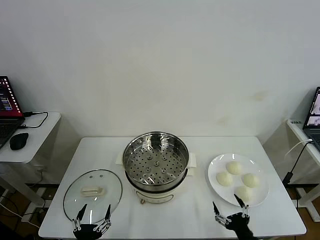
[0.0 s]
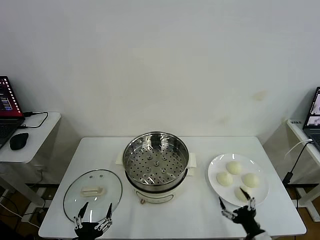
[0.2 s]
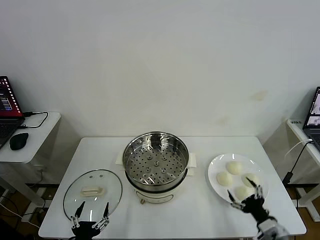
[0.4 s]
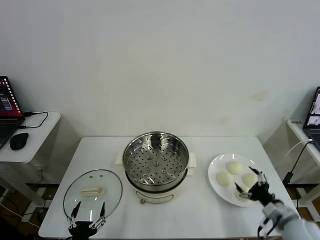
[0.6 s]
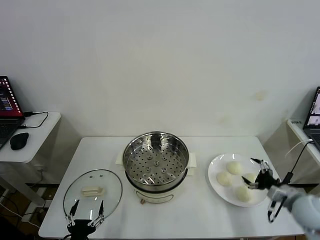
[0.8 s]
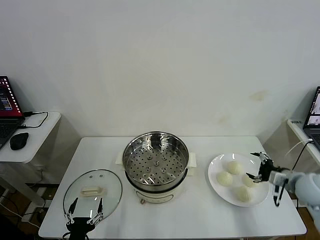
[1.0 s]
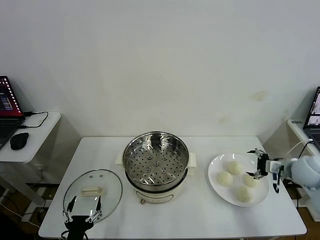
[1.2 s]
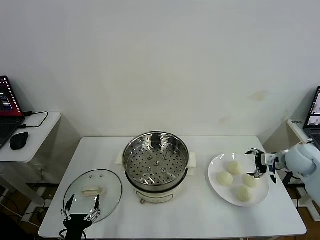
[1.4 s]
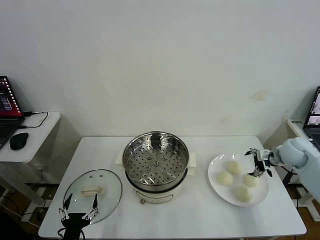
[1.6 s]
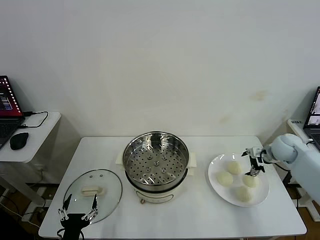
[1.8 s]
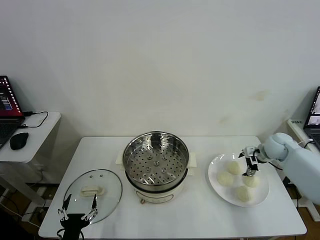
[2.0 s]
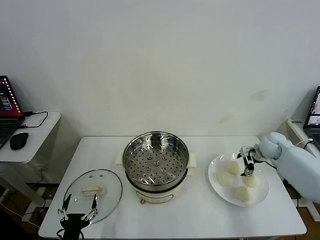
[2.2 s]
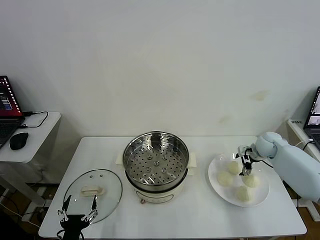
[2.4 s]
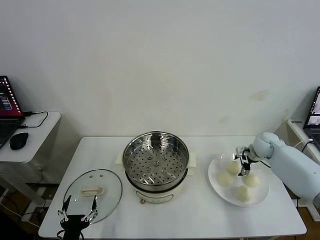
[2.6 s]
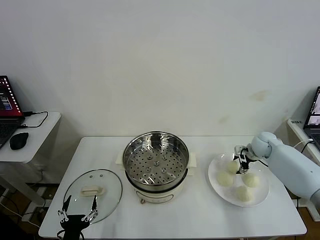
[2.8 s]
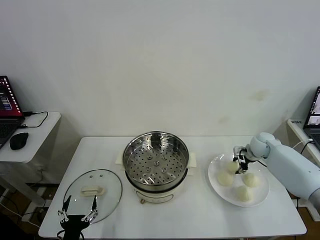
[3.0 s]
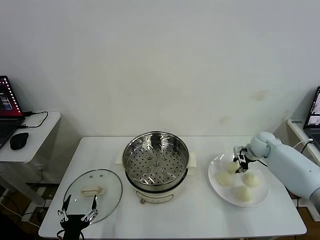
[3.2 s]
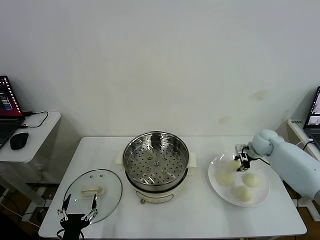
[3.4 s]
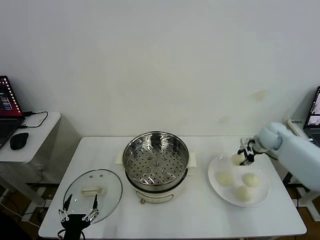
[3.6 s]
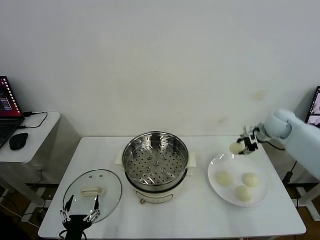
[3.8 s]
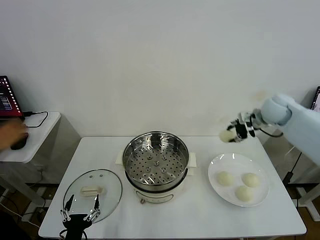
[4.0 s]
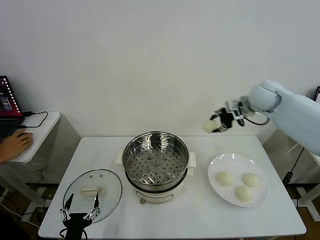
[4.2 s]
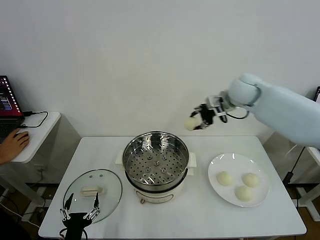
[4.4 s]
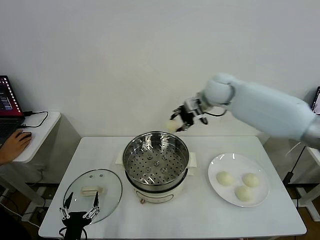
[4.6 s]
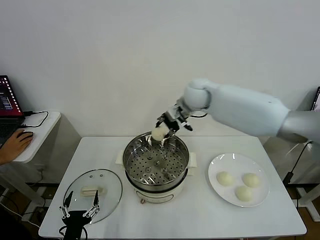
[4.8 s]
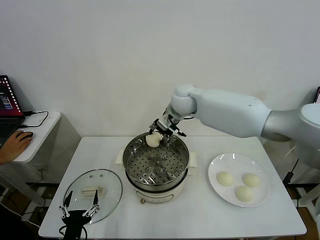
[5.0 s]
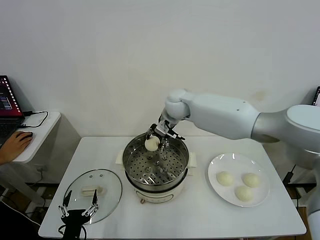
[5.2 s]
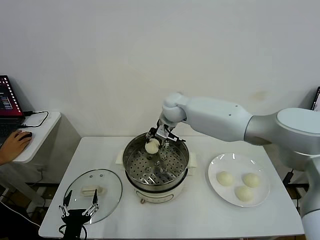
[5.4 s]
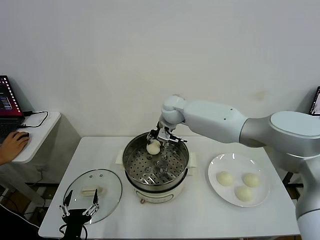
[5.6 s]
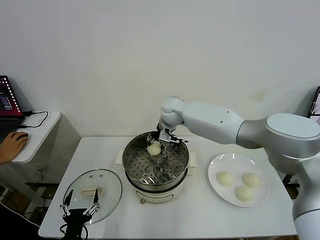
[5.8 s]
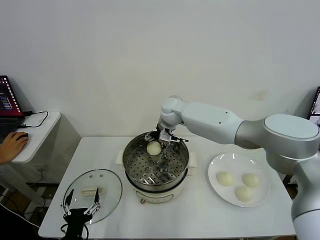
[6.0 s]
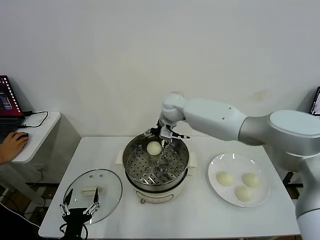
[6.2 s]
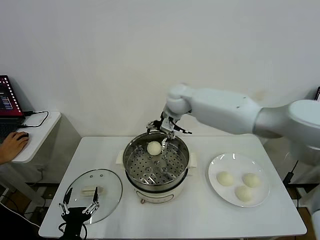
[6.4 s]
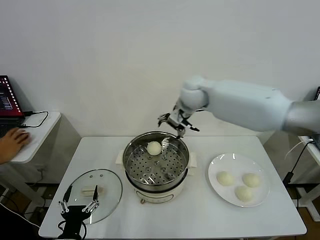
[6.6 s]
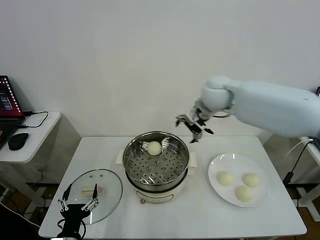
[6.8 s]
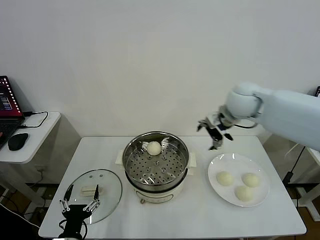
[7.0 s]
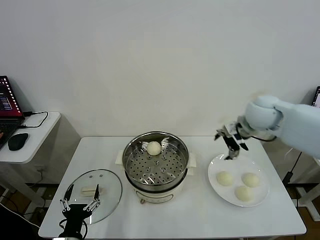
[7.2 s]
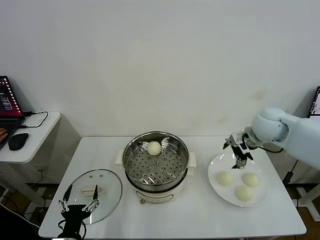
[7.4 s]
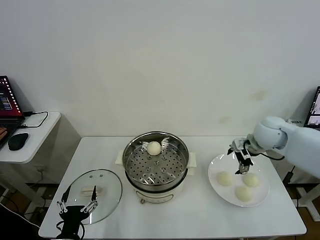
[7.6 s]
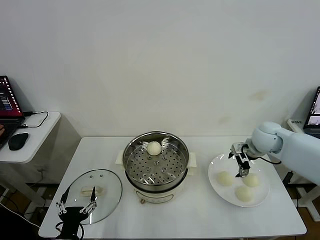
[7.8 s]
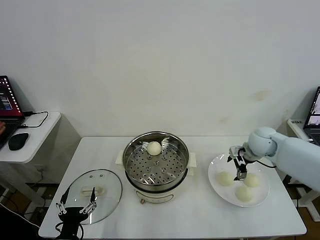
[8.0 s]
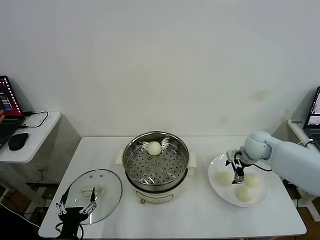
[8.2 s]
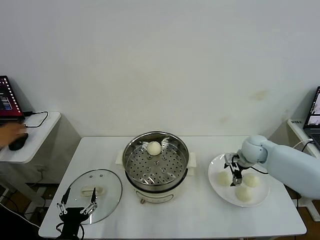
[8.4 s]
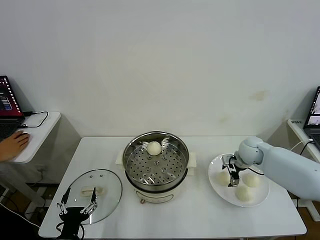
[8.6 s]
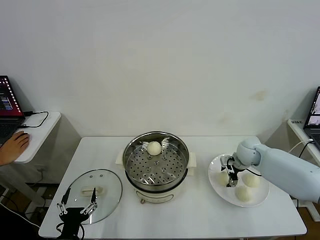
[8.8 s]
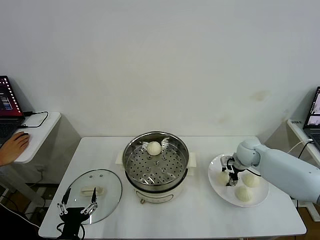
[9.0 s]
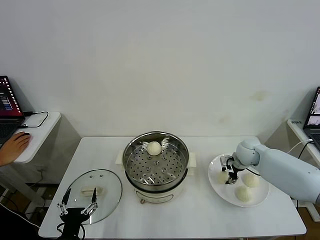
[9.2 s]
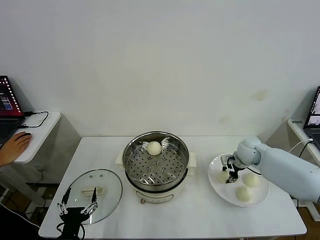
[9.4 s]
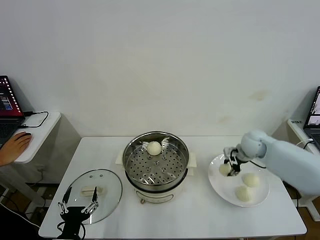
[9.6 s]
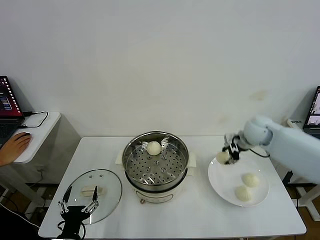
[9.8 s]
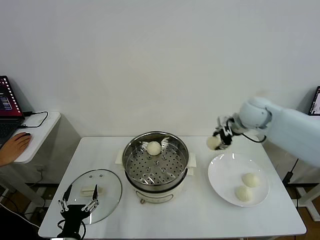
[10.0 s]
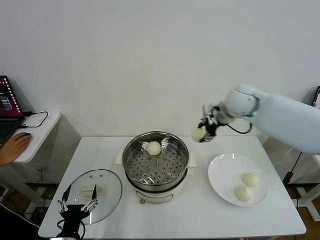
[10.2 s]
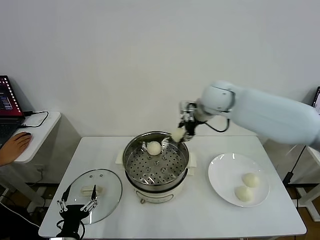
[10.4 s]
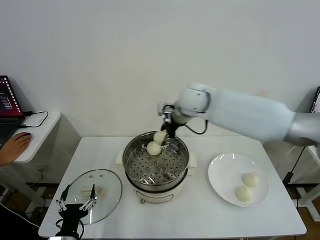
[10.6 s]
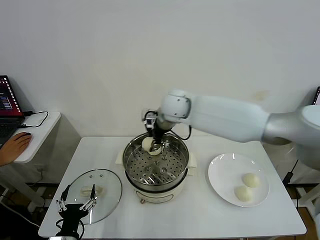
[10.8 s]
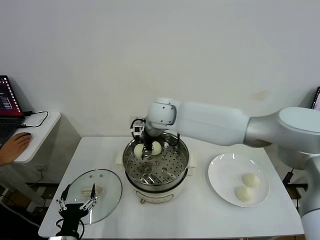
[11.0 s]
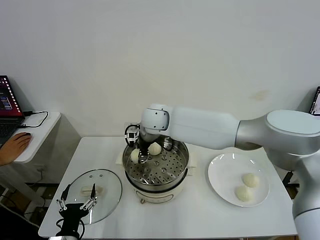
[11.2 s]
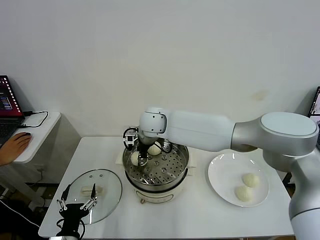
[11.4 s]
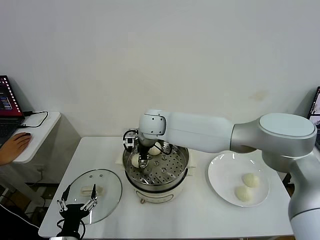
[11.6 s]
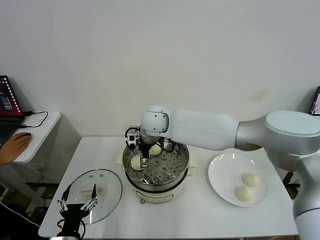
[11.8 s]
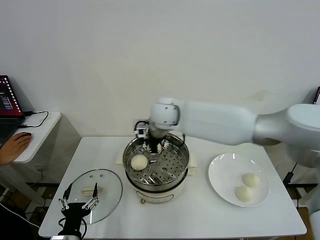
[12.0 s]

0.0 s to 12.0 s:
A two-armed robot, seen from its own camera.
Task of the whole recording: take steamed baozi put them in steamer then cover it.
Step, 0.0 to 2.8 s: Grasp the baozi in the plate with right gripper.
Step, 3.0 to 6.0 s: Place the baozi on the steamer with right gripper.
Step, 6.2 to 9.2 s: Grasp the baozi in the plate with right gripper.
Step, 9.4 to 11.8 s: Place the baozi on the steamer with right gripper.
1.6 to 3.0 s: The right gripper goes about 10 cm forward and downward, and closes up.
3.0 to 4.4 s: The right gripper goes approximately 30 cm upward and to the left.
4.4 to 6.0 s: The right gripper is displaced to the left and downward by roughly 20 cm, and opens up.
6.0 to 7.6 s: The right gripper moves to the right, some 30 cm.
7.6 to 9.0 s: The right gripper moves downward, about 10 cm, and closes.
9.0 to 10.4 s: The right gripper moves upward and to the left, approximately 30 cm.
10.4 to 12.0 s: The right gripper travels to the left by some 10 cm, and opens.

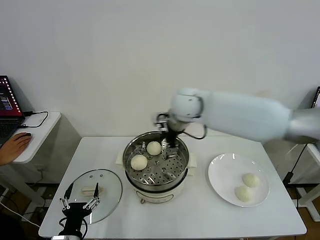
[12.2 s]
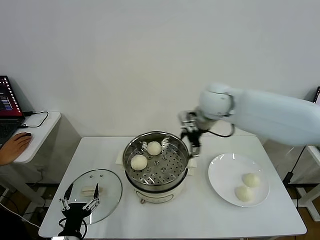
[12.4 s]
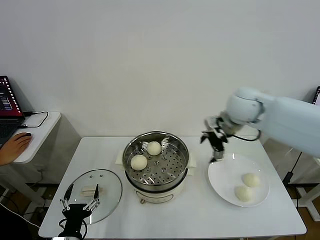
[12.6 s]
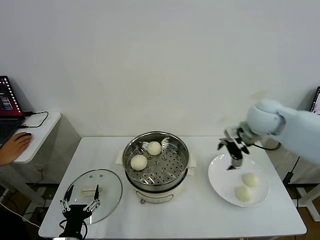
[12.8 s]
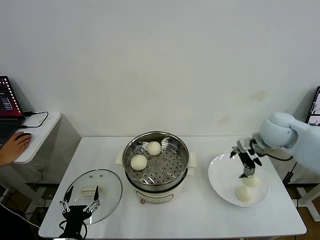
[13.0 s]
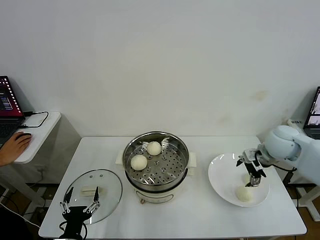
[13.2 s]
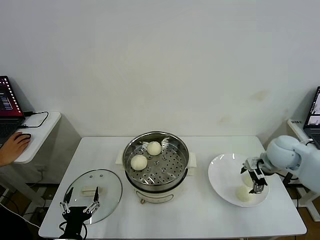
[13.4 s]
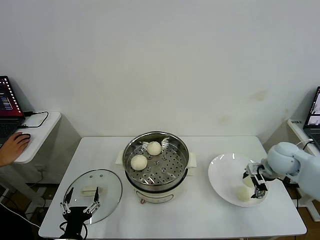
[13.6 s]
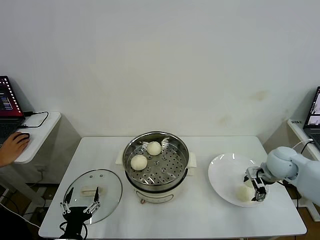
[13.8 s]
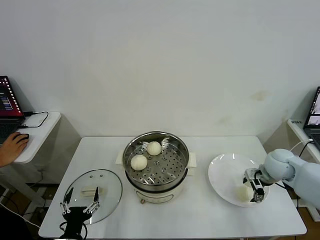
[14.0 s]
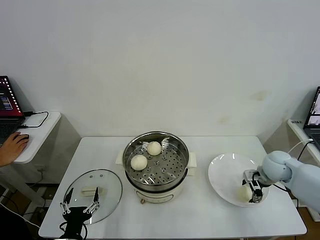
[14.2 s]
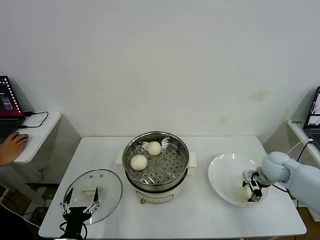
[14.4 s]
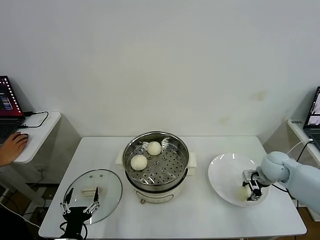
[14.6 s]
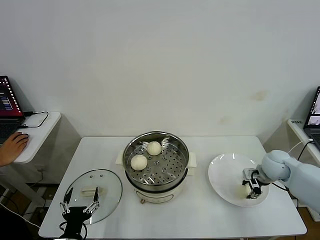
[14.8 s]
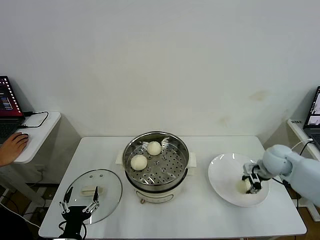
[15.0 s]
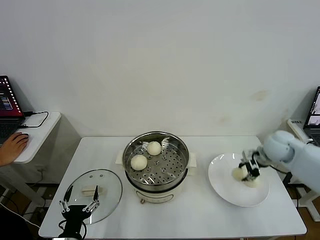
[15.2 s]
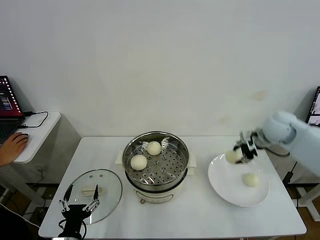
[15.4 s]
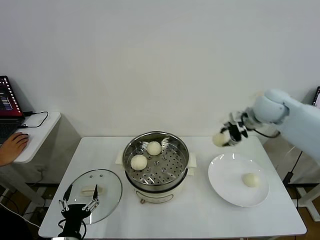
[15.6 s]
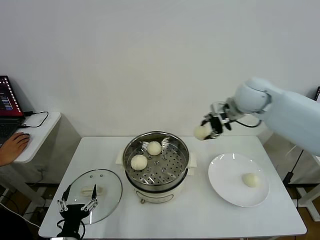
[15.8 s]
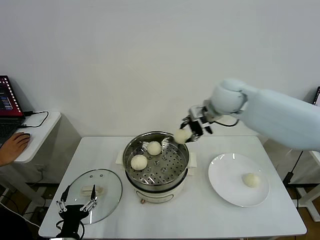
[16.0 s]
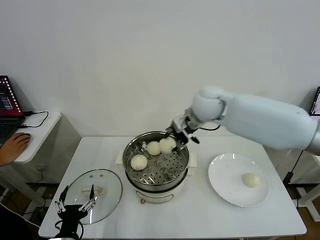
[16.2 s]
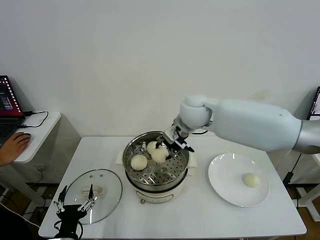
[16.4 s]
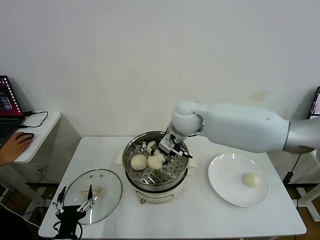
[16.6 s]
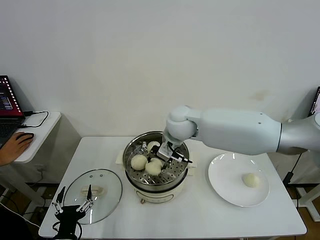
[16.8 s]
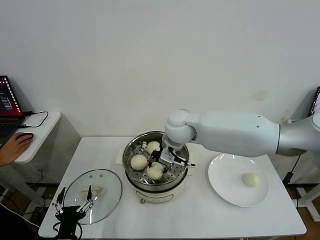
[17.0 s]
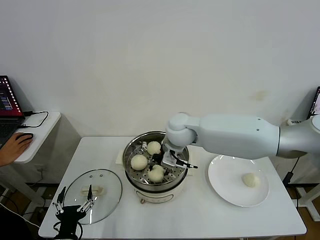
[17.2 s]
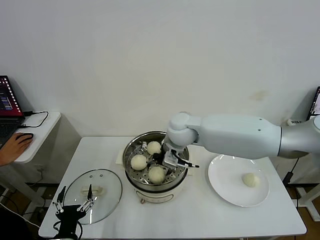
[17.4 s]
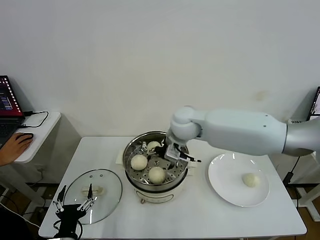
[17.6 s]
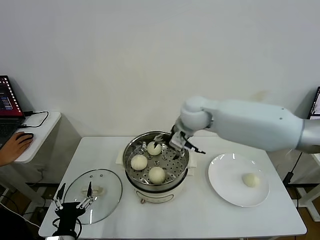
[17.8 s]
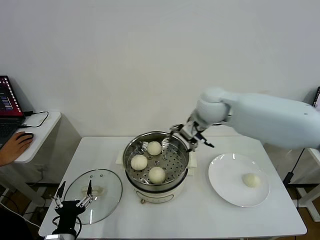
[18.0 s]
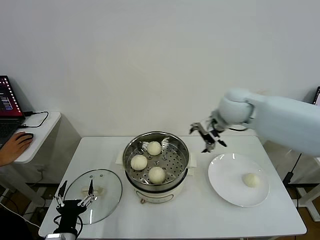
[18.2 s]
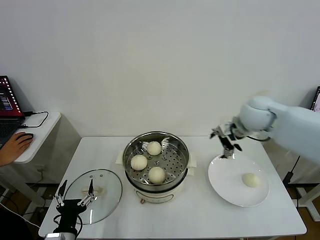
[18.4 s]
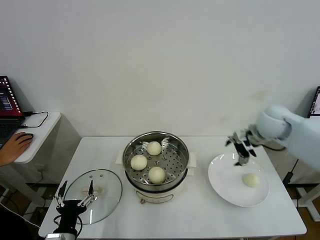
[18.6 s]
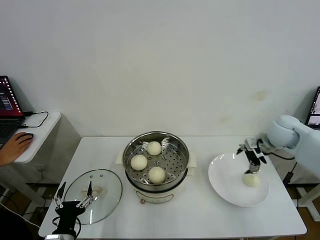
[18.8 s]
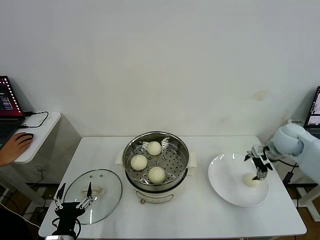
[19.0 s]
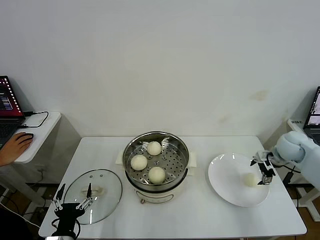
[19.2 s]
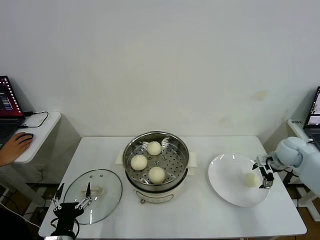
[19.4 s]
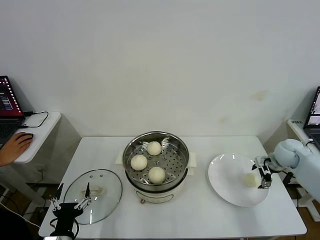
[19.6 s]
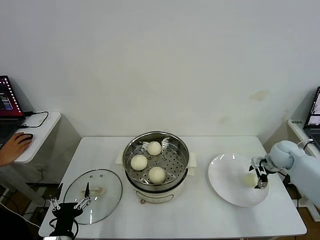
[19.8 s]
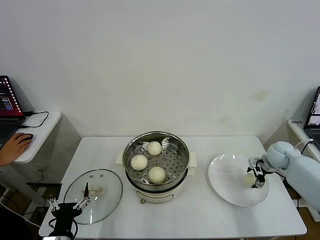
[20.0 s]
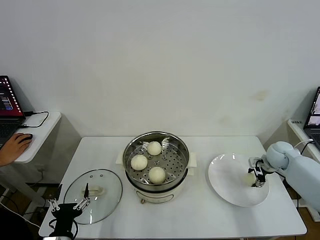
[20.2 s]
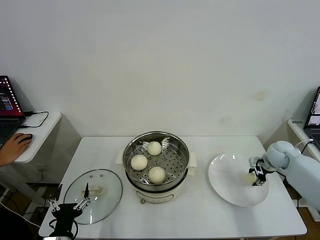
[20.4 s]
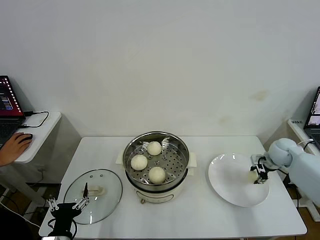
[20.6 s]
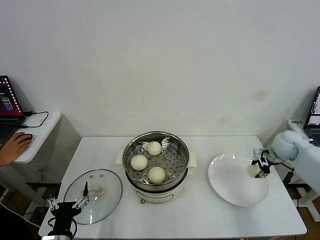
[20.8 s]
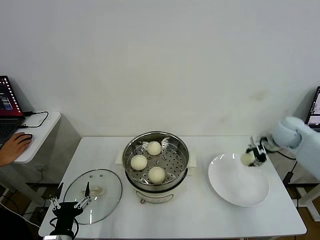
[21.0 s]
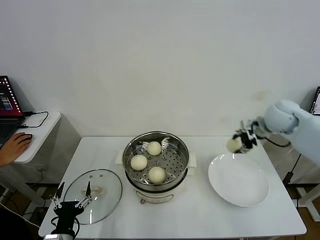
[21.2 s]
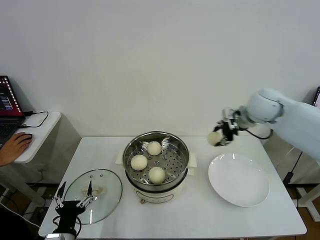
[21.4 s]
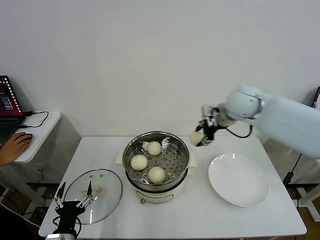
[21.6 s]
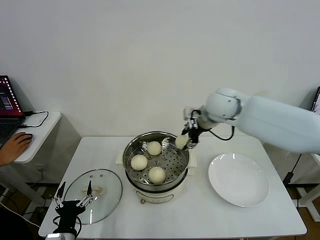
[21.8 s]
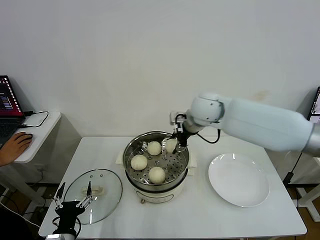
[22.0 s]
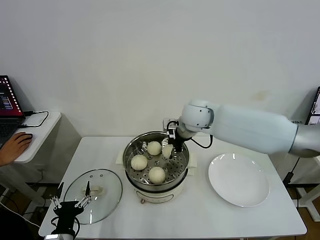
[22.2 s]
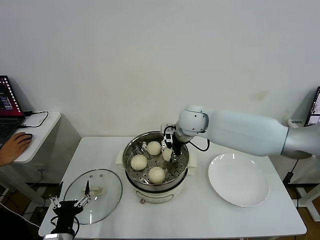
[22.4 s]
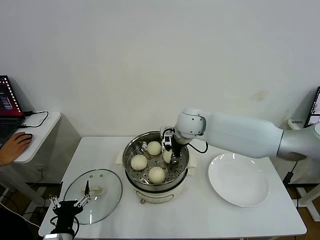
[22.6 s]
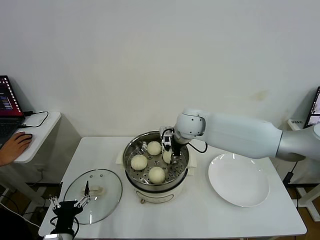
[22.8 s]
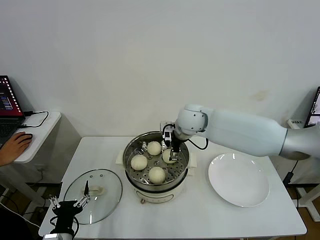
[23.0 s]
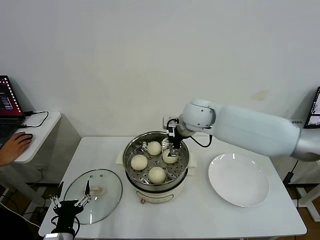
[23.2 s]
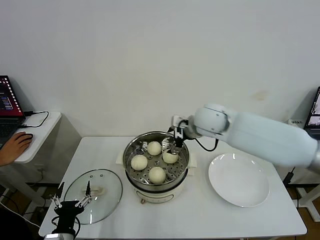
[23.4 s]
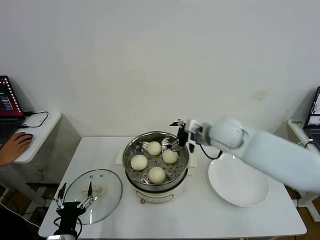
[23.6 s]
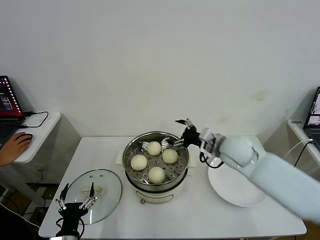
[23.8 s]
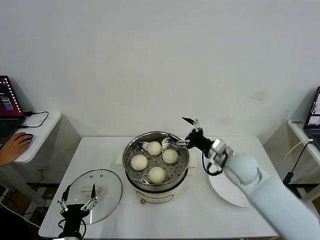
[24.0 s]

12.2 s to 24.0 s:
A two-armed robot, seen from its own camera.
Task of the whole recording: take steamed baozi put them in steamer then cover it.
Step, 12.2 to 14.6 s: Grasp the baozi in the plate with right gripper.
Step, 14.8 to 17.4 s: Place the baozi on the steamer with right gripper.
Step, 17.6 to 20.4 s: Grasp the baozi in the plate with right gripper.
Step, 20.6 to 22.8 s: Place the baozi on the steamer with right gripper.
12.2 to 13.6 s: The right gripper travels to the right and downward by roughly 35 cm.
13.6 to 15.2 s: The right gripper changes place by some 5 cm, and closes its fingers.
15.2 to 16.6 s: The right gripper moves to the left, approximately 30 cm.
16.6 to 18.2 s: The right gripper travels to the right by roughly 15 cm, and opens.
18.2 to 19.6 s: The right gripper shifts roughly 30 cm to the right and downward.
19.6 to 21.0 s: The right gripper moves upward, roughly 10 cm, and closes up.
21.0 to 22.6 s: The right gripper heads to the left, covering some 30 cm.
22.6 to 24.0 s: The right gripper shifts some 20 cm to the right, backward and downward, and opens.
